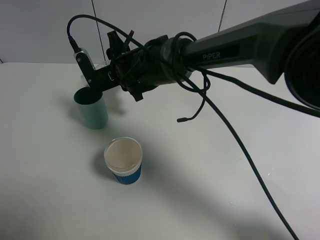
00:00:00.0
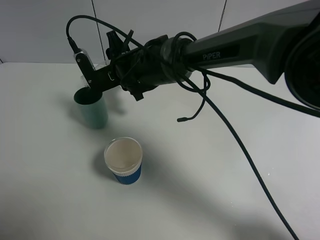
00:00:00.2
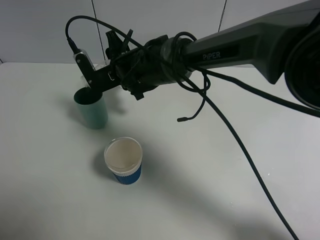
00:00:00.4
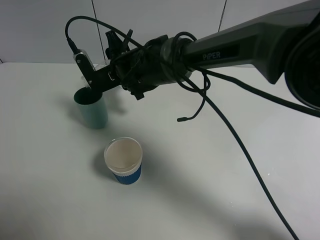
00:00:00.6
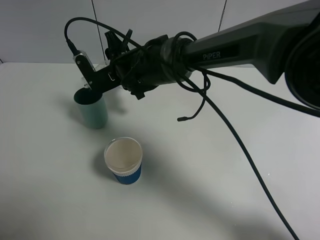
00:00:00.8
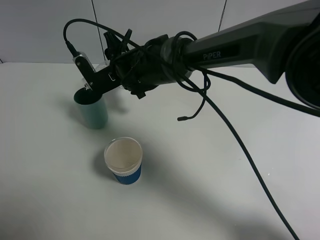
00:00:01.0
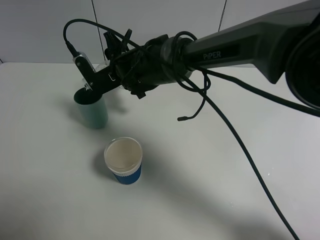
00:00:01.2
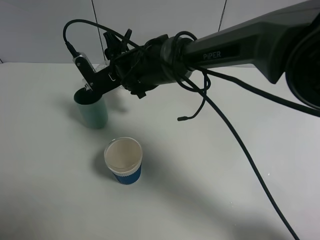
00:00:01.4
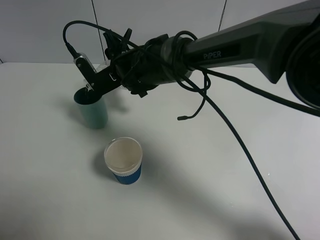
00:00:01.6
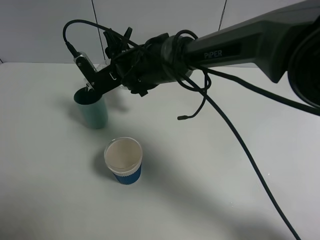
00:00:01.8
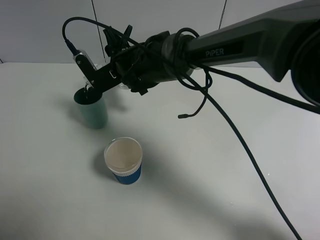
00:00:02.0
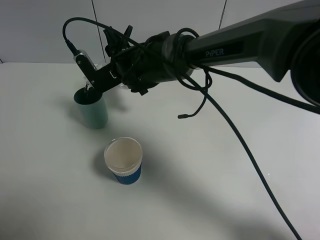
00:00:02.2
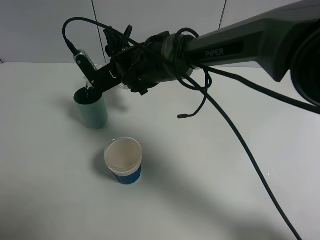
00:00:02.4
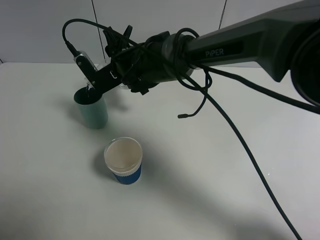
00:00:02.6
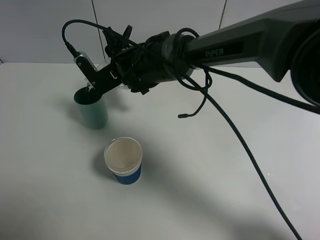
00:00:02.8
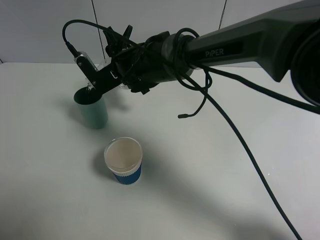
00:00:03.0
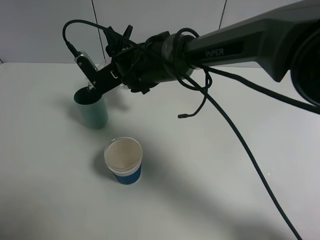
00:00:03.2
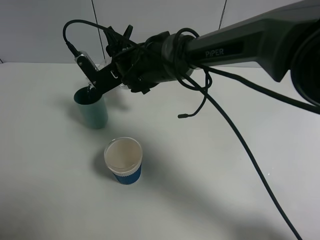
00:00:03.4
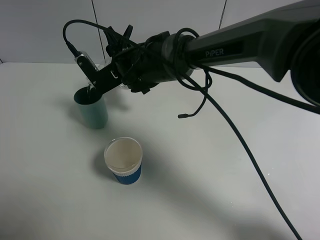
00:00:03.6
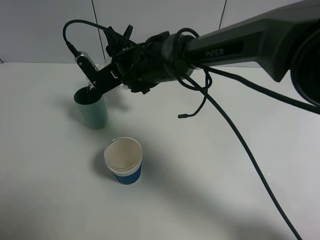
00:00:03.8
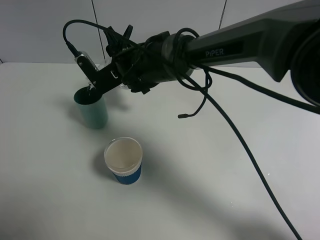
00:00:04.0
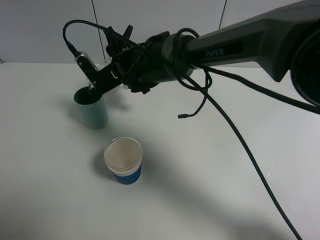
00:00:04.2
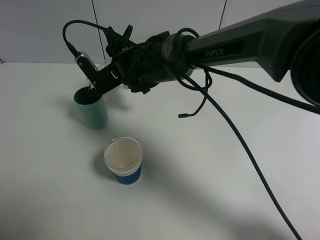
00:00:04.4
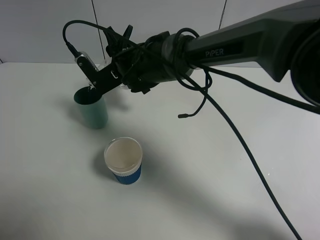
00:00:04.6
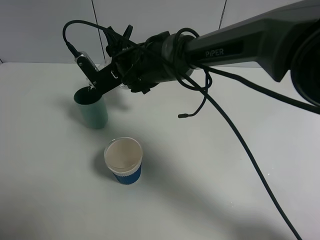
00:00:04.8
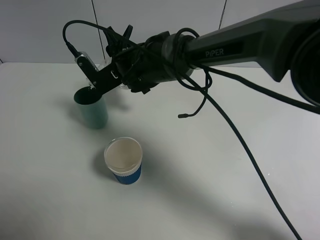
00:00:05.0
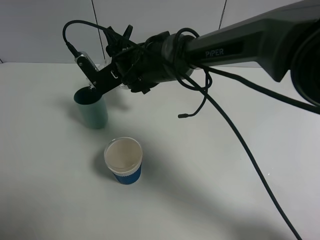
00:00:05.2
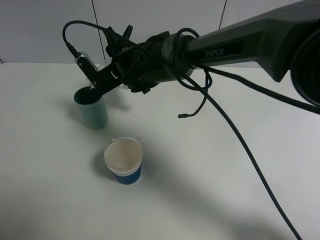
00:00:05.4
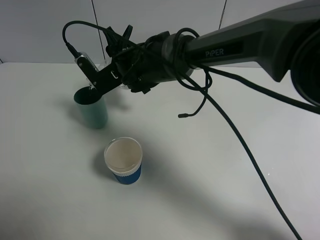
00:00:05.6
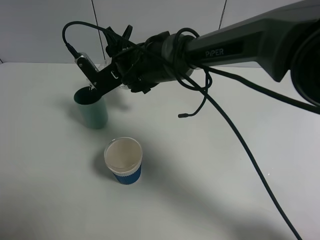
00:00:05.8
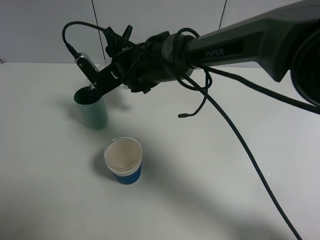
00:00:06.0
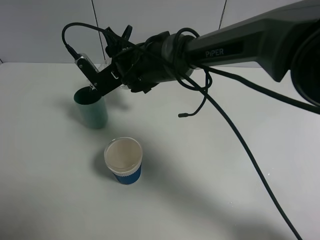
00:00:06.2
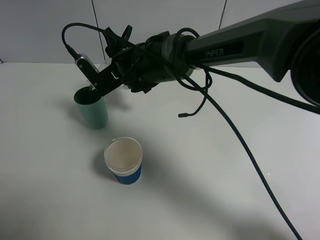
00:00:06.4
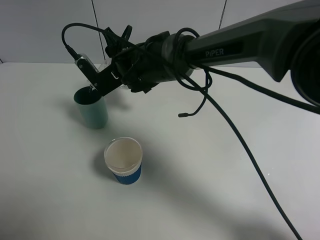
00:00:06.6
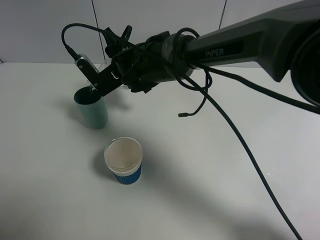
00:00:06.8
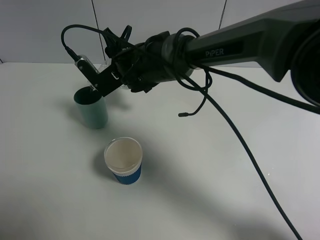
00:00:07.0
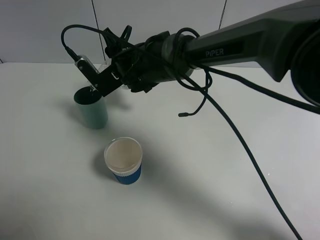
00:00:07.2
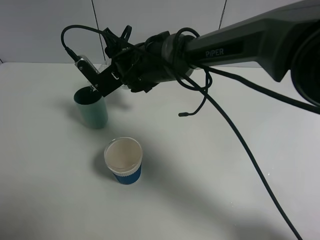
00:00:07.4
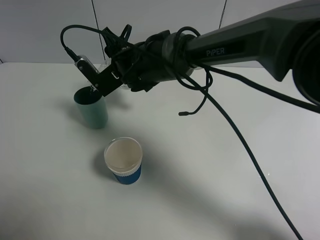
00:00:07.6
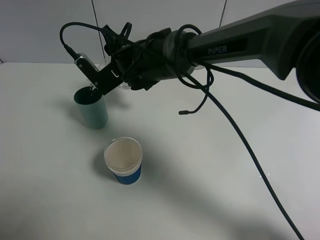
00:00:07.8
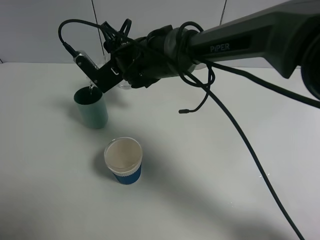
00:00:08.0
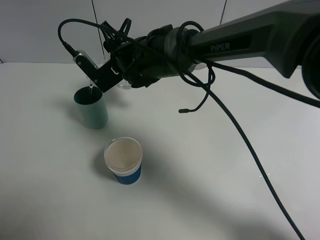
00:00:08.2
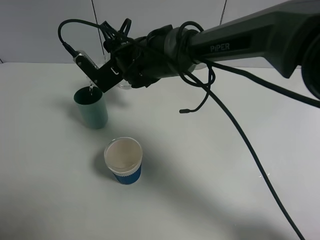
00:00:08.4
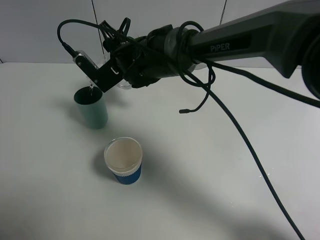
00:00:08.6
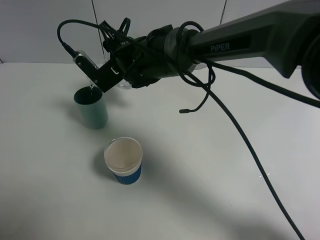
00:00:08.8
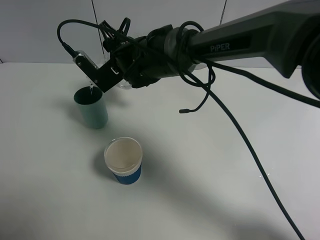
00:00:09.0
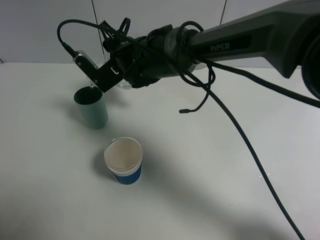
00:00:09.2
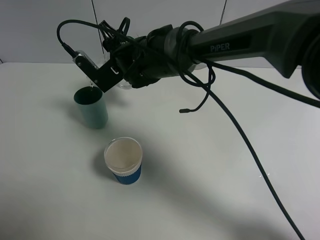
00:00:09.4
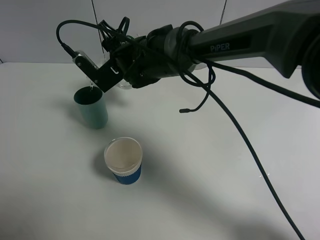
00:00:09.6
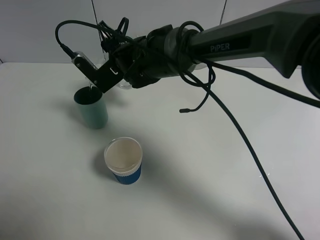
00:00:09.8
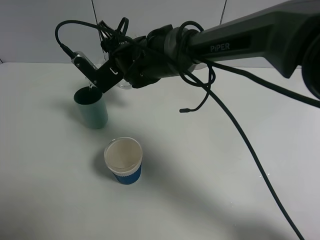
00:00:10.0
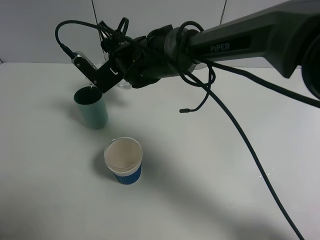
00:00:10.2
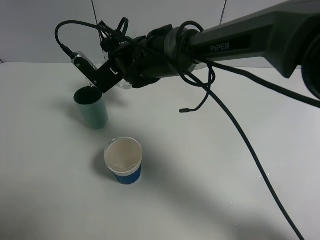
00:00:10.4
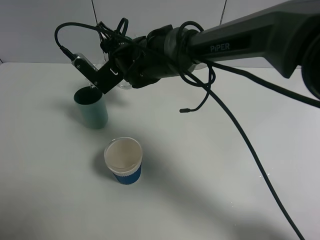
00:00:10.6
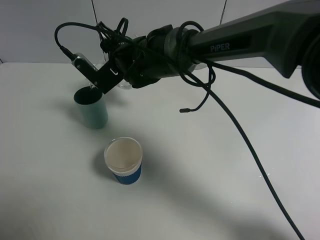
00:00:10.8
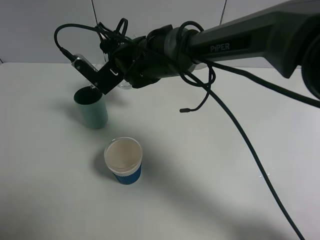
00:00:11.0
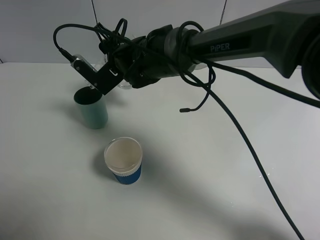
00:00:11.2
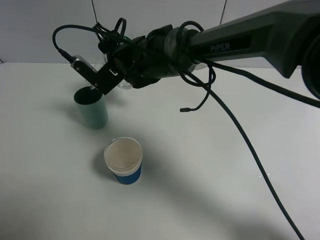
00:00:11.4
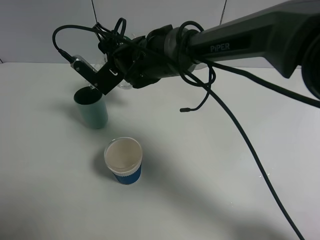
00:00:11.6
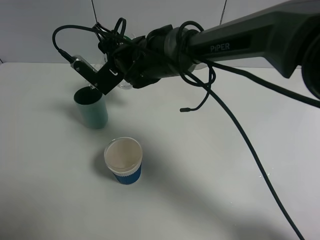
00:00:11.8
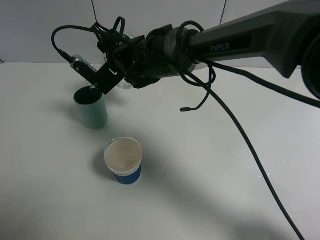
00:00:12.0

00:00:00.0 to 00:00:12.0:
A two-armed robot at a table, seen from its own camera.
Task of the whole recording: use a gripper to hold the bottle of the drink and pour it into a random cup.
00:00:00.0 to 00:00:01.6: There are only small adjustments of the grippers.
00:00:01.6 to 00:00:06.0: Both grippers stay put.
00:00:06.0 to 00:00:07.6: Both grippers stay put.
00:00:07.6 to 00:00:10.4: Both grippers stay put.
00:00:10.4 to 00:00:12.0: The grippers make only small movements.

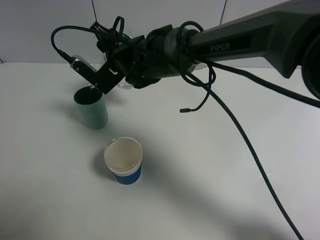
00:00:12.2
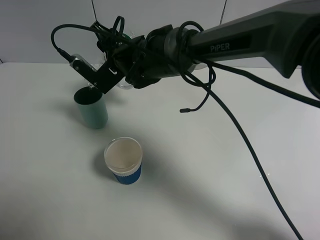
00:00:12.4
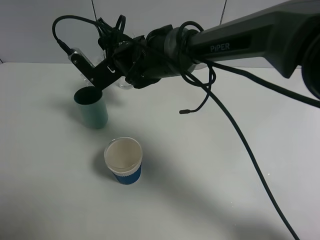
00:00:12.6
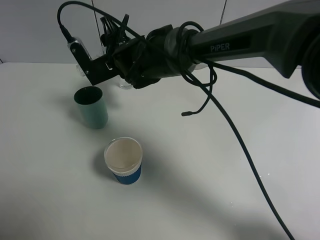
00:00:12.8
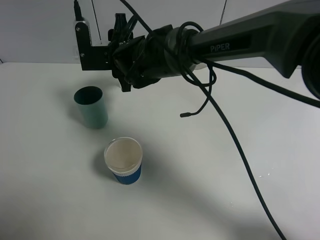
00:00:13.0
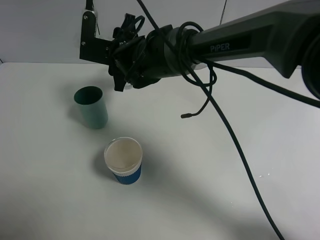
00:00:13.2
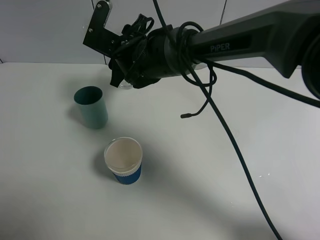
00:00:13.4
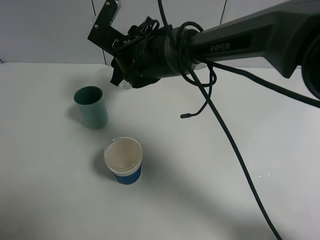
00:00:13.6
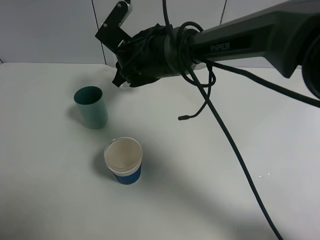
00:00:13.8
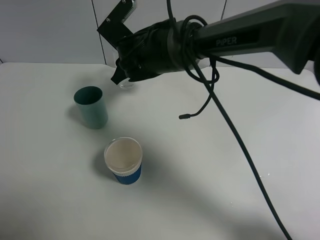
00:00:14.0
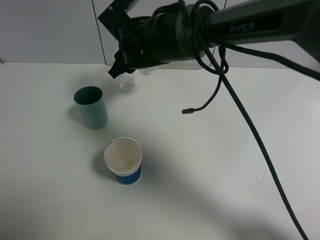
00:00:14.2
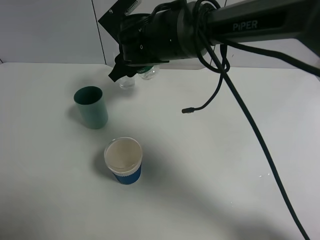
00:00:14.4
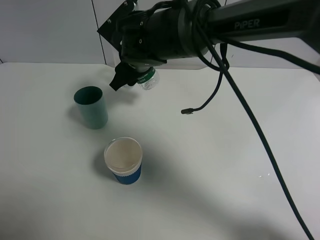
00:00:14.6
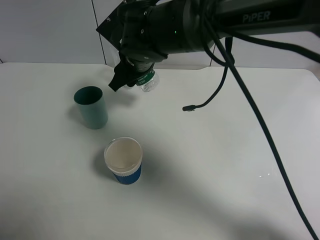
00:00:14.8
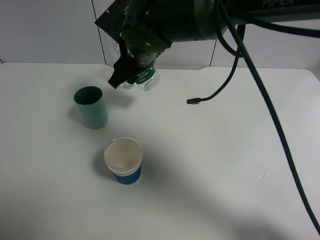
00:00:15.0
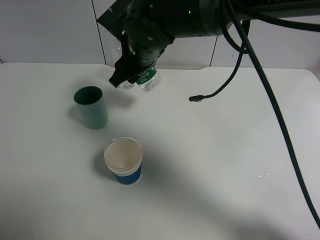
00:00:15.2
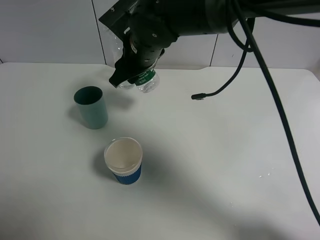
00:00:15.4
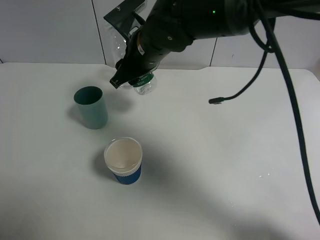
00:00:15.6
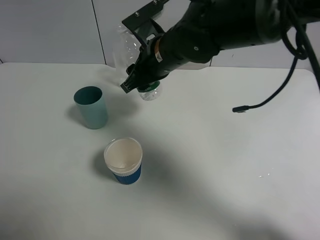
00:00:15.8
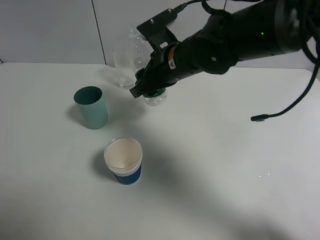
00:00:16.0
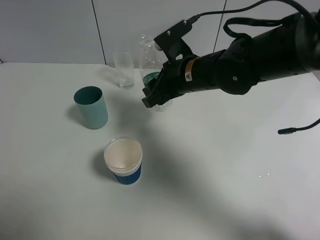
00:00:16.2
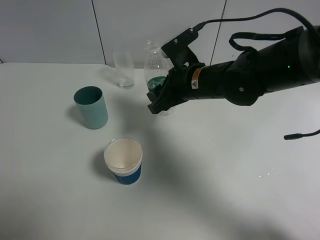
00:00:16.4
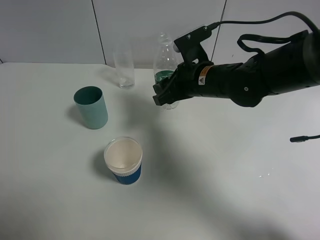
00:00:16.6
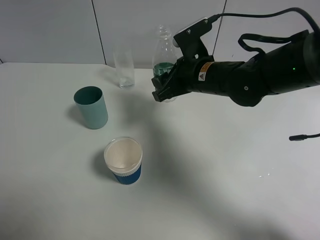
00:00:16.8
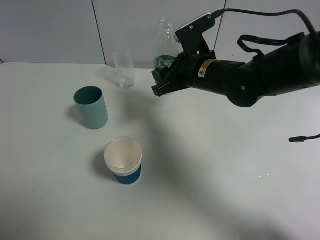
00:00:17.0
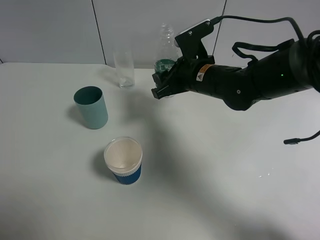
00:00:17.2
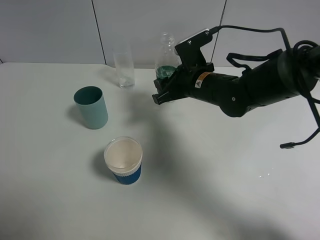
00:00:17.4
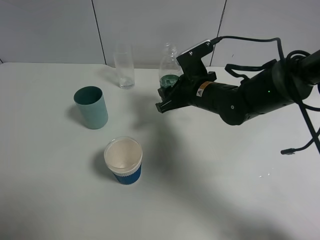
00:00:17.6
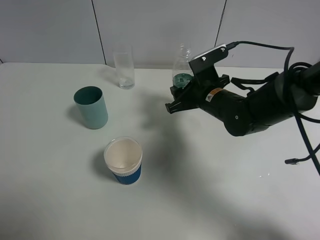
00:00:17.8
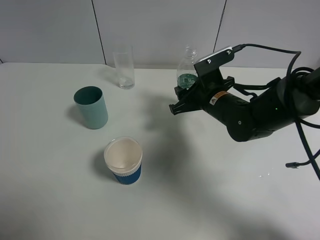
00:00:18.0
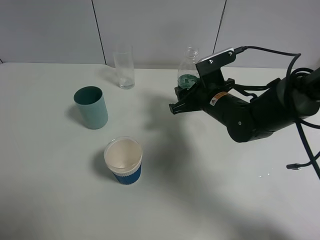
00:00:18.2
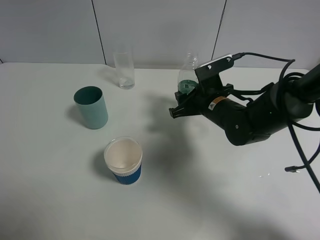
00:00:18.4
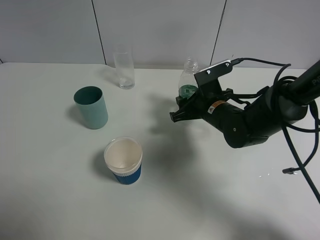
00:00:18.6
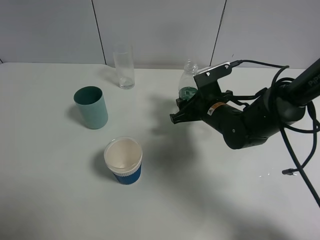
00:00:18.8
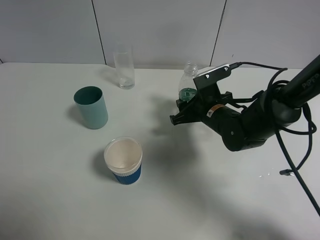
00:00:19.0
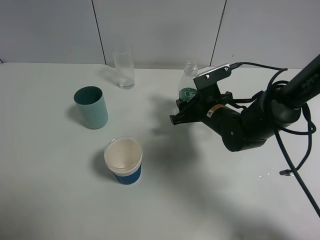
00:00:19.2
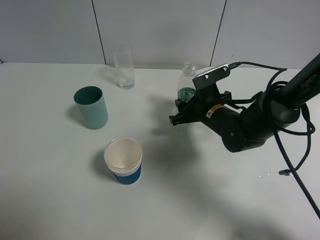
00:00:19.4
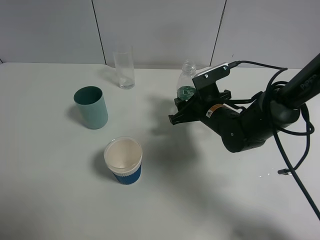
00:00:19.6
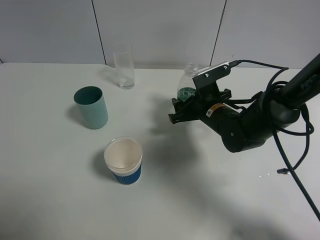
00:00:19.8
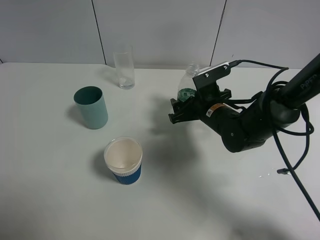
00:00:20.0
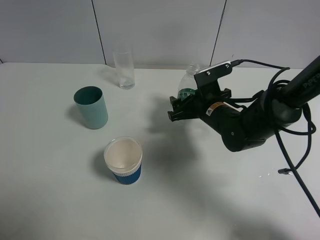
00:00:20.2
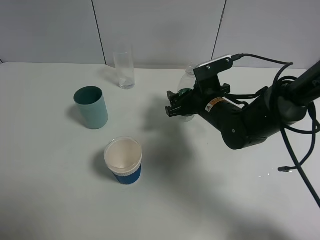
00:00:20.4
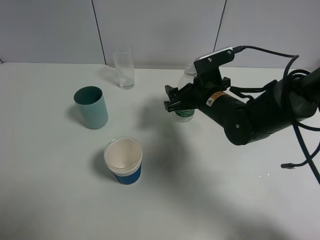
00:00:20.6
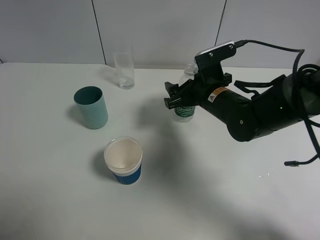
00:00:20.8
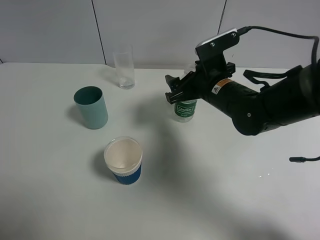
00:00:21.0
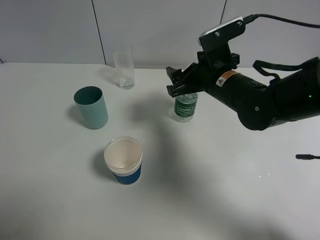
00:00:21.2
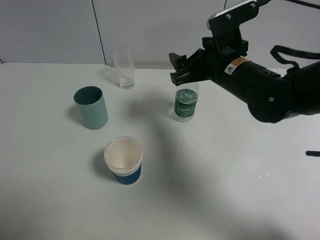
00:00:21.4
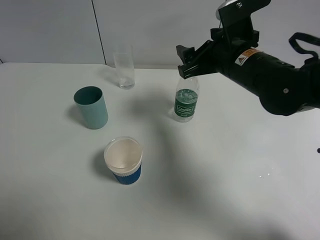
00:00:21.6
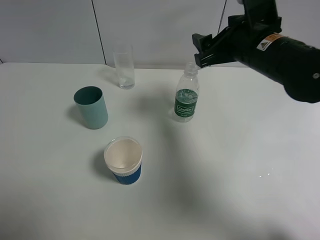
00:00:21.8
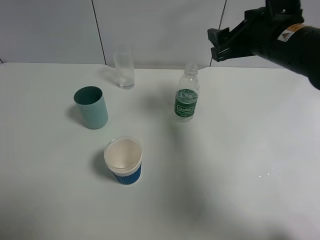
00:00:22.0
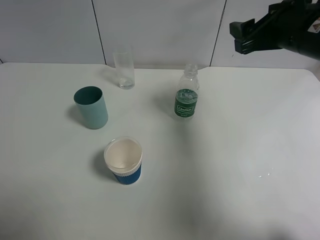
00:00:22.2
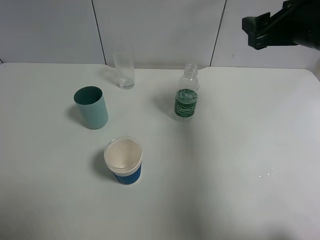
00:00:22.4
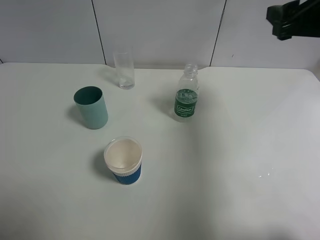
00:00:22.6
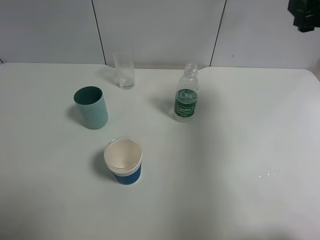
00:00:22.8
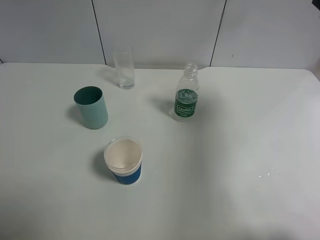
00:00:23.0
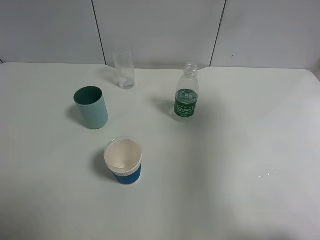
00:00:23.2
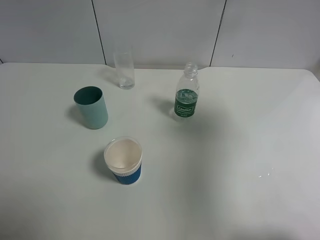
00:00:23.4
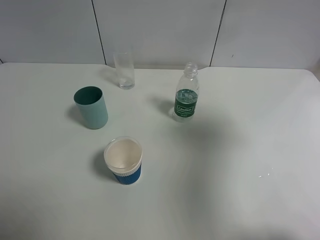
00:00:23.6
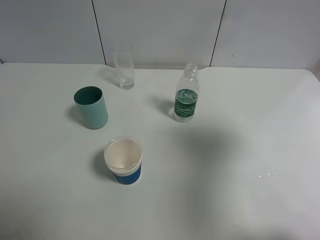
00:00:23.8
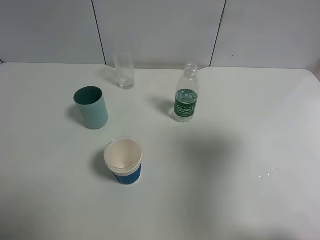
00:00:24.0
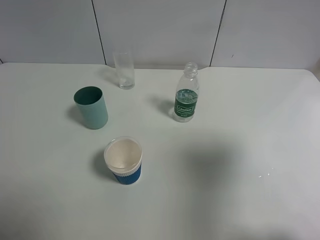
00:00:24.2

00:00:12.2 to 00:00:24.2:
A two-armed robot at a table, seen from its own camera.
Task of the whole recording: use a gripper to hold the bottle of the drink and pour it into a random cup.
Step, 00:00:13.2 to 00:00:21.0: Place the mineral water bottle on the table with the right gripper.
00:00:13.8 to 00:00:15.2: The right gripper changes place by some 5 cm.
00:00:15.2 to 00:00:16.6: The right gripper goes roughly 15 cm to the right and downward.
00:00:16.6 to 00:00:18.2: The right gripper is displaced downward by about 5 cm.
00:00:18.2 to 00:00:19.8: The right gripper opens up.
00:00:19.8 to 00:00:21.2: The right gripper is displaced upward by about 10 cm.
00:00:21.2 to 00:00:22.6: The right gripper moves to the right and upward, about 20 cm.
00:00:22.6 to 00:00:24.2: The right gripper travels backward by about 20 cm.
